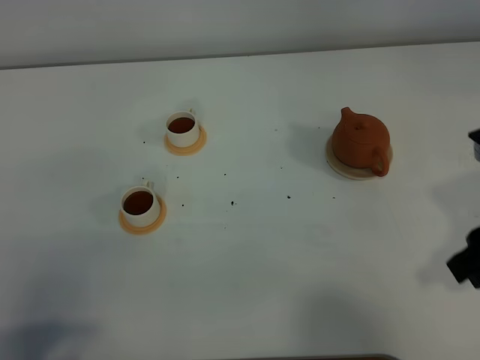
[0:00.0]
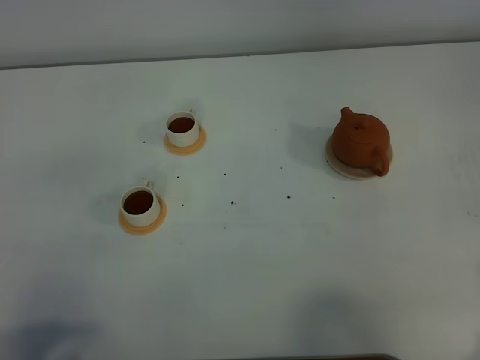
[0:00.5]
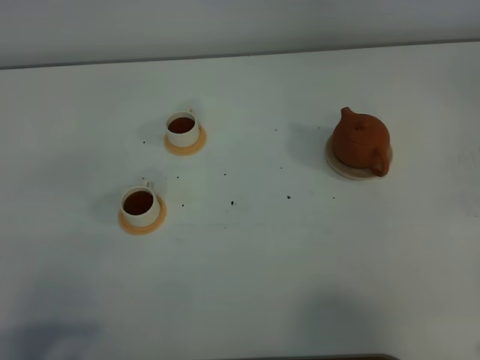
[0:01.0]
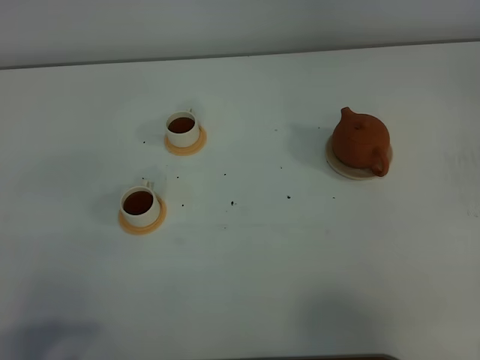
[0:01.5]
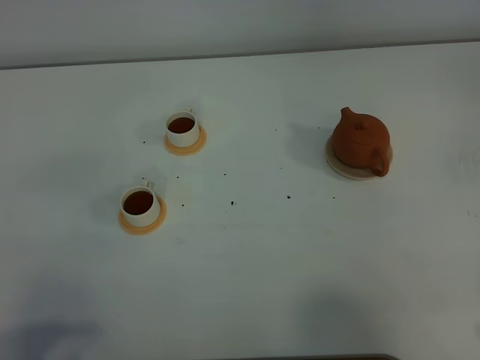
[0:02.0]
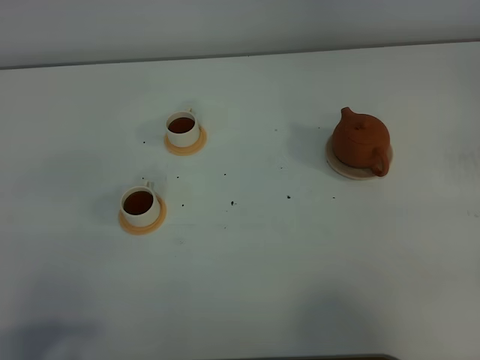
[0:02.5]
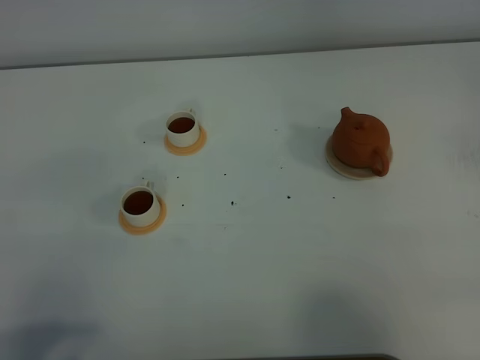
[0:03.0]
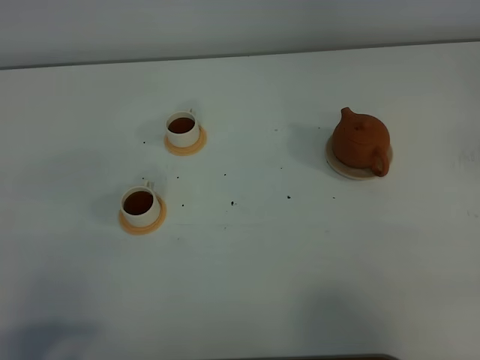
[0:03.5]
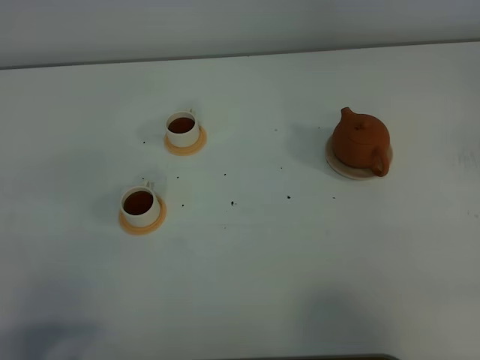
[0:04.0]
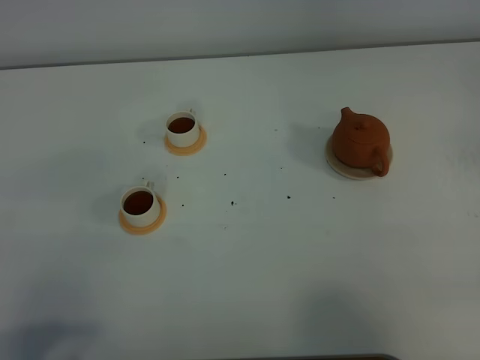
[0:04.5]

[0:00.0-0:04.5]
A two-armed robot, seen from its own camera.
Task of the whole recording: grasp the brown teapot and pour the tea into the two white teacups one by one, put the brown teapot back in its original place.
0:00.0 to 0:02.0: The right gripper heads backward and to the right, covering approximately 15 cm.
